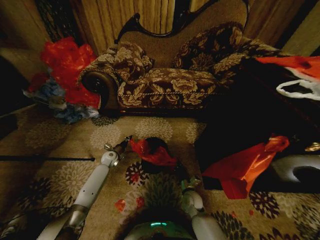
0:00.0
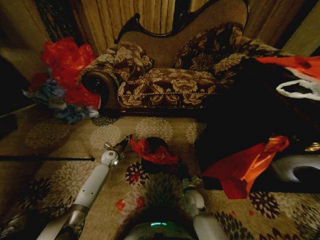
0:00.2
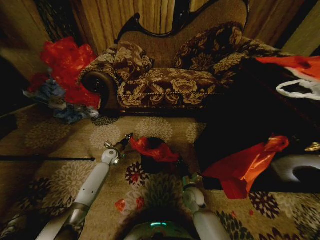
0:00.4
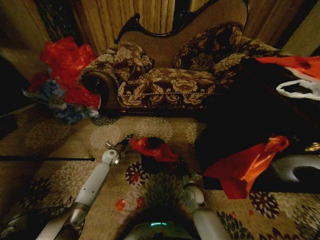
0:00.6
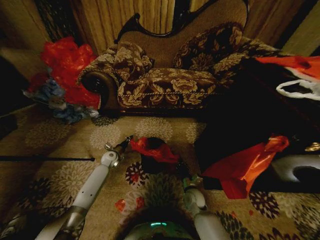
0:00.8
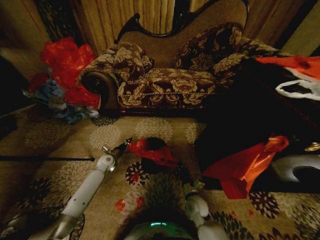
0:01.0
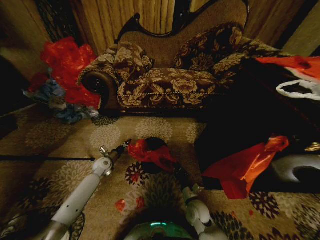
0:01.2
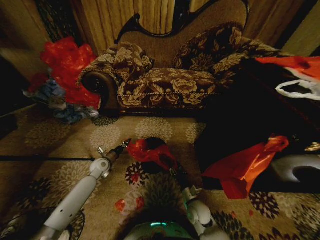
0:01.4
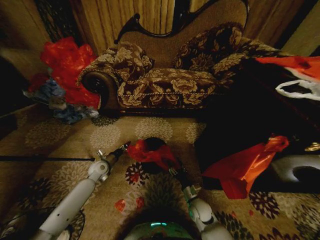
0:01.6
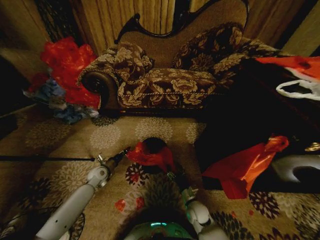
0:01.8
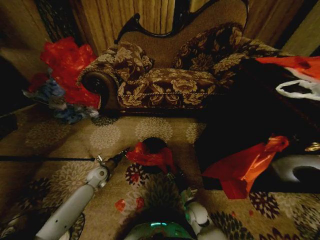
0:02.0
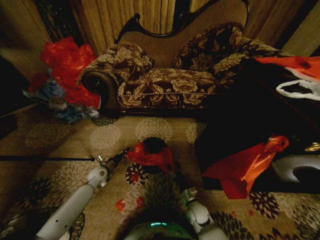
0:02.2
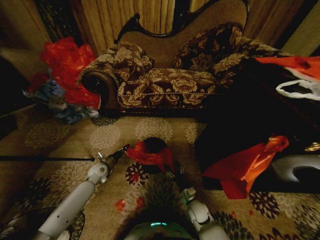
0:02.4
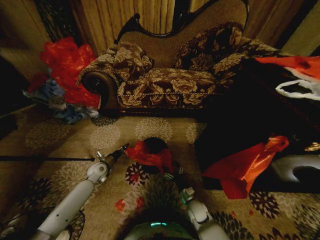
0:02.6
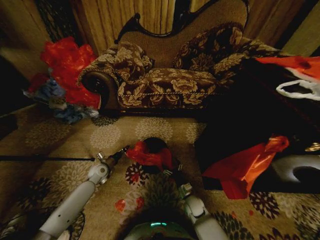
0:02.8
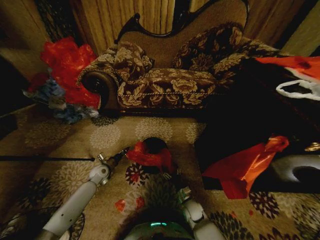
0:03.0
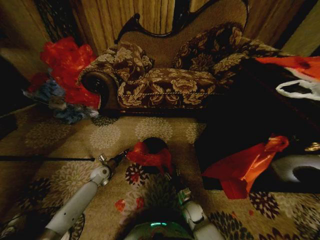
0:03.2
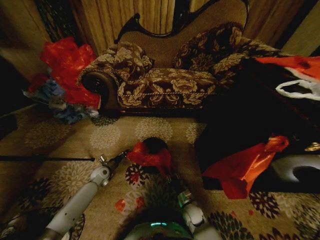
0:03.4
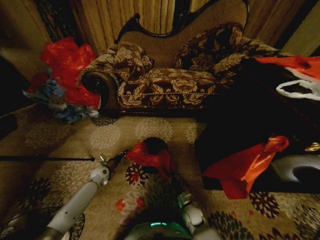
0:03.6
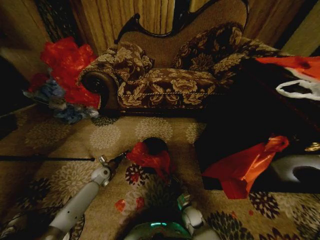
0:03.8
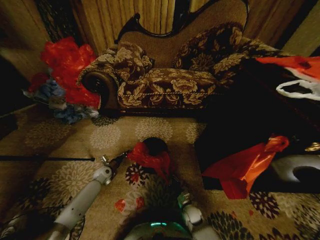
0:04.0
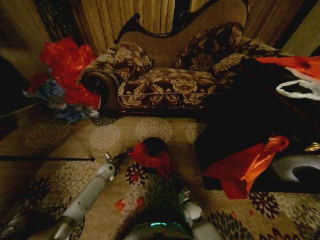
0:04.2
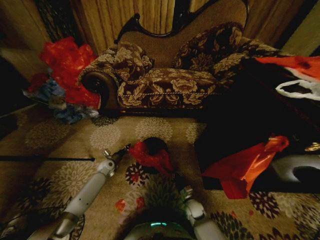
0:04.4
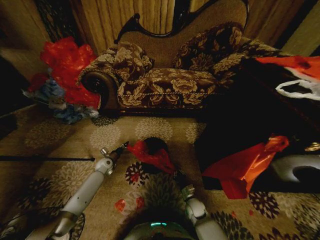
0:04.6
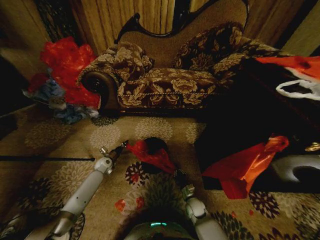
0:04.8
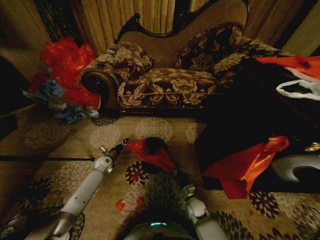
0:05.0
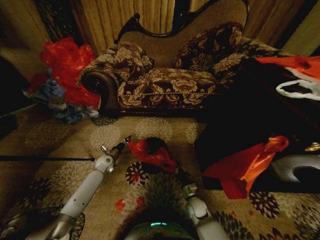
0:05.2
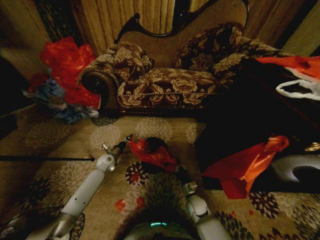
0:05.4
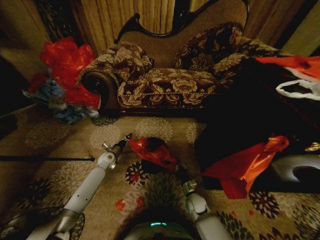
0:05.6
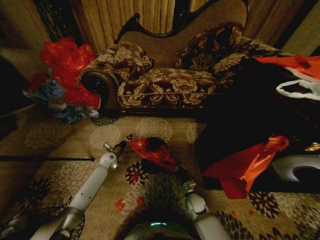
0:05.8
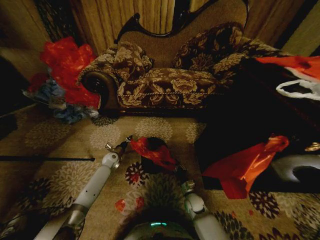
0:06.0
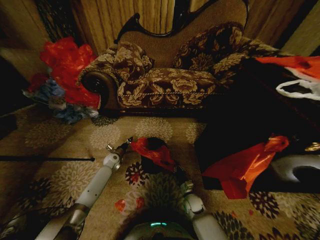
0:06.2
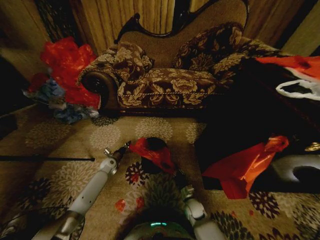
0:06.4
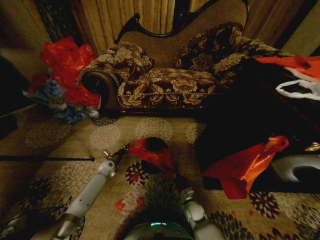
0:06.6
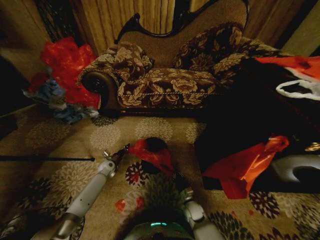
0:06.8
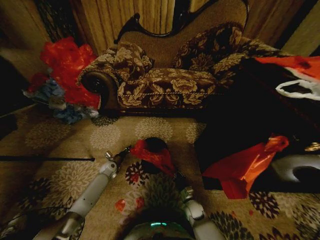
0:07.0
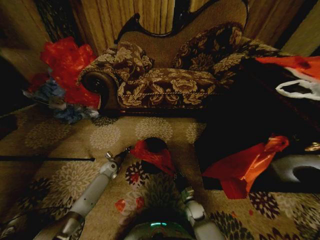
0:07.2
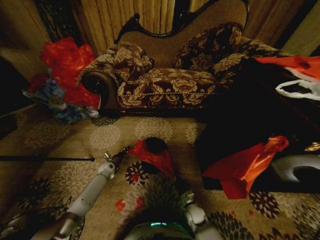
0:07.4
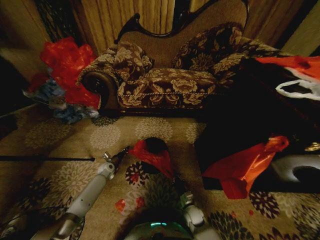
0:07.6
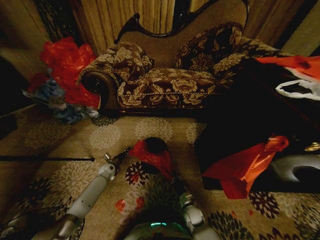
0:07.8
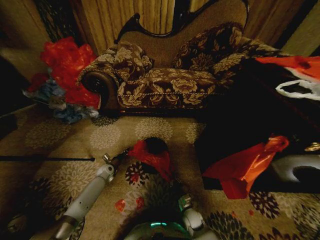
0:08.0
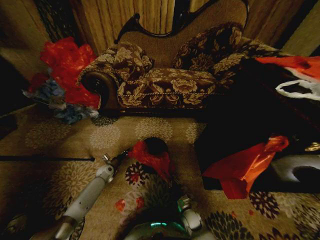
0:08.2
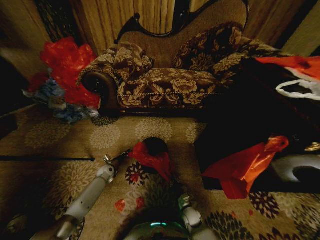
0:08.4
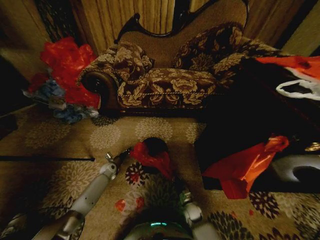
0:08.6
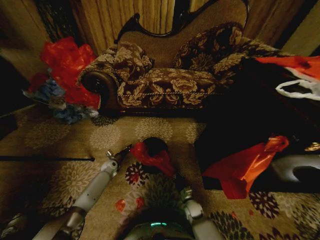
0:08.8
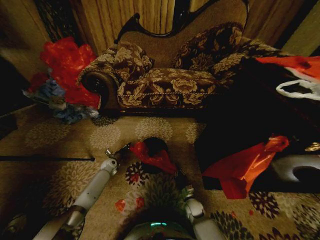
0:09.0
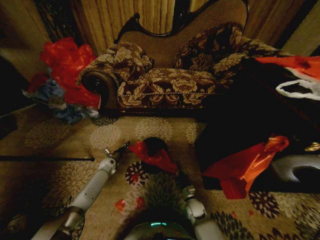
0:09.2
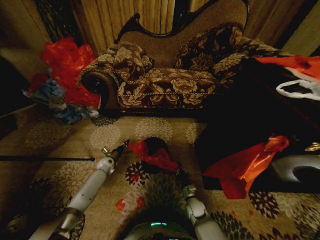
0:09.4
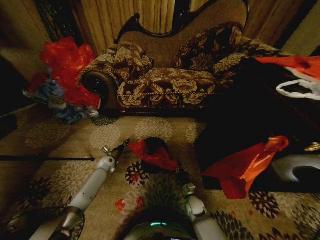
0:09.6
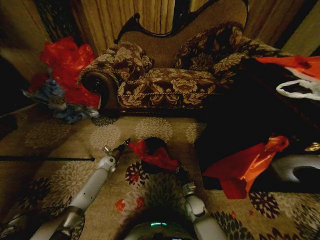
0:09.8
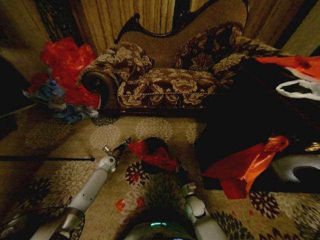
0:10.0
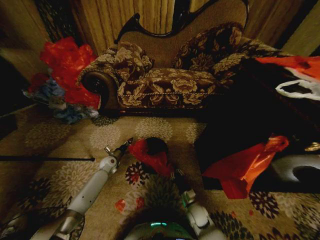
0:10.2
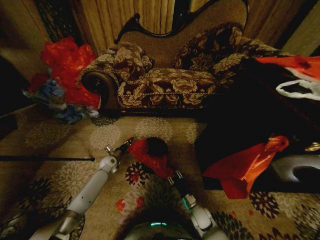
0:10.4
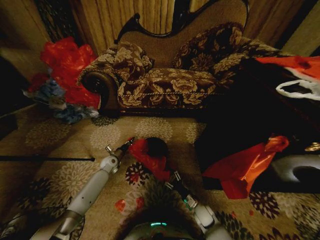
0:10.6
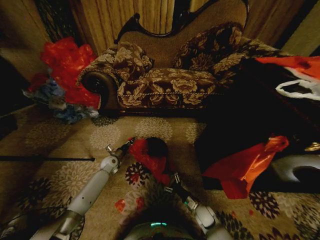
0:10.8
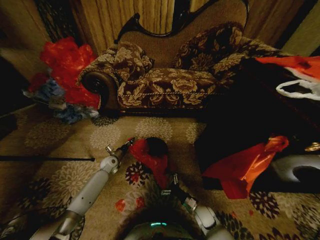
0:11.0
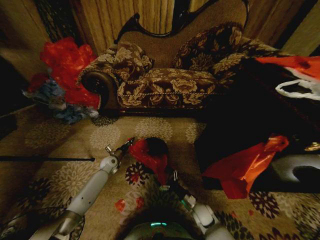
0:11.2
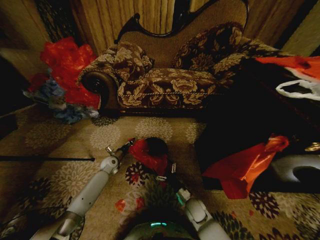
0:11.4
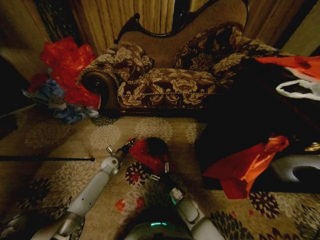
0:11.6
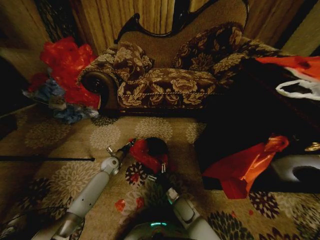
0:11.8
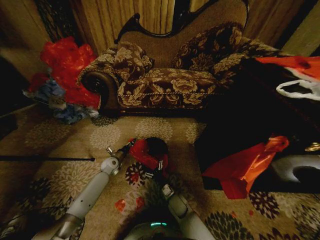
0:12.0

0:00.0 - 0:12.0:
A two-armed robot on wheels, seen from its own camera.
Task of the whole recording: Place a garbage bag over the trash bin.
0:00.0 - 0:01.6: The right gripper opens. The left gripper travels backward by about 10 cm.
0:01.6 - 0:03.0: The right gripper travels downward by some 5 cm.
0:03.0 - 0:04.4: The right gripper closes its fingers. Meanwhile the left gripper moves forward, about 5 cm.
0:04.4 - 0:06.0: The grippers move only a little.
0:06.0 - 0:07.6: The left gripper heads downward, covering approximately 5 cm, while the right gripper ends up about 5 cm from where it was.
0:07.6 - 0:09.0: The grippers move only a little.
0:09.0 - 0:10.4: The right gripper moves some 5 cm, and opens its fingers.
0:10.4 - 0:12.0: The right gripper travels to the left by approximately 10 cm, and opens.

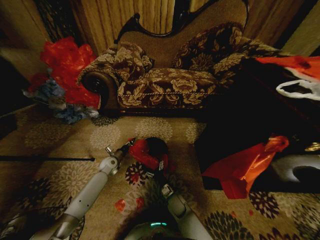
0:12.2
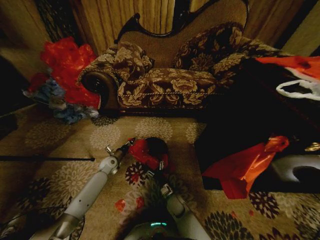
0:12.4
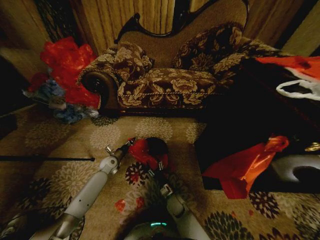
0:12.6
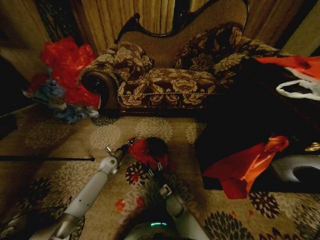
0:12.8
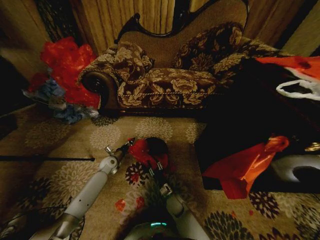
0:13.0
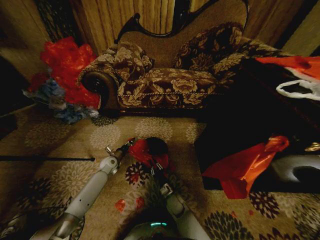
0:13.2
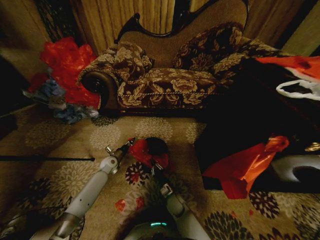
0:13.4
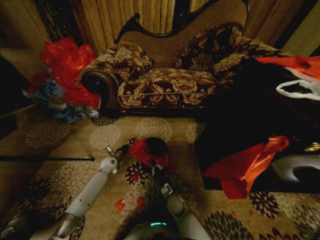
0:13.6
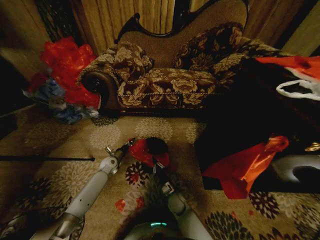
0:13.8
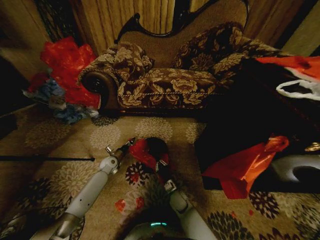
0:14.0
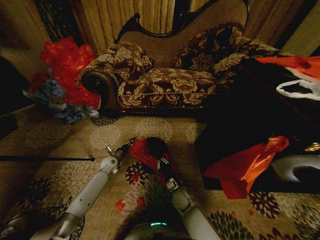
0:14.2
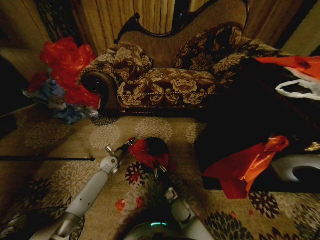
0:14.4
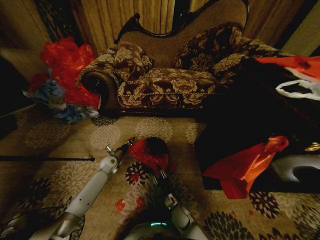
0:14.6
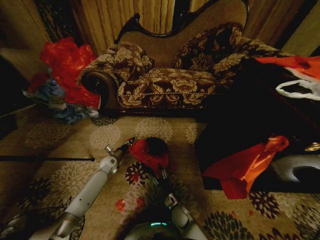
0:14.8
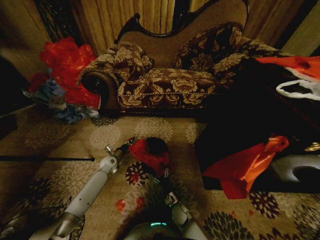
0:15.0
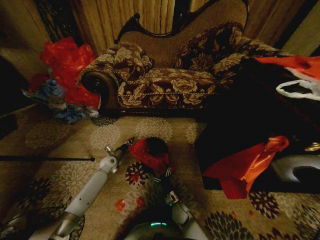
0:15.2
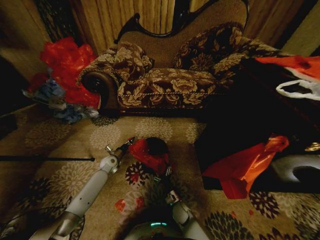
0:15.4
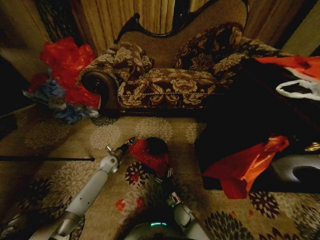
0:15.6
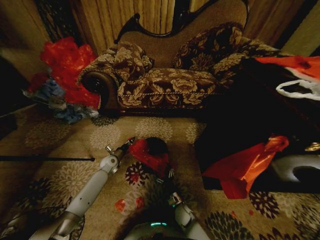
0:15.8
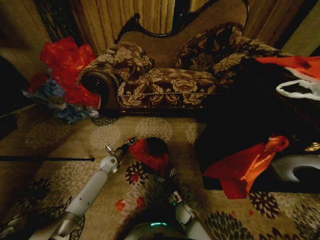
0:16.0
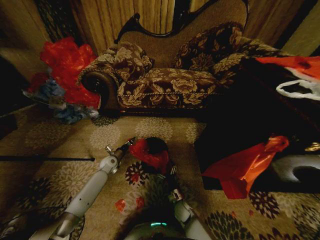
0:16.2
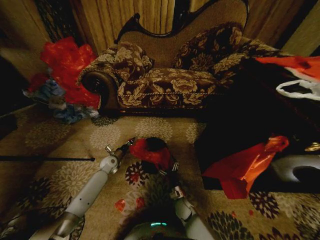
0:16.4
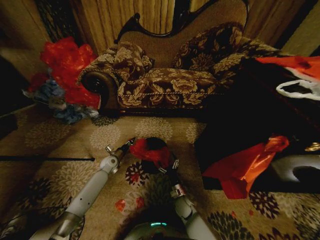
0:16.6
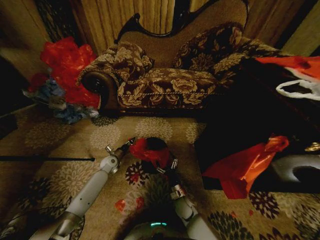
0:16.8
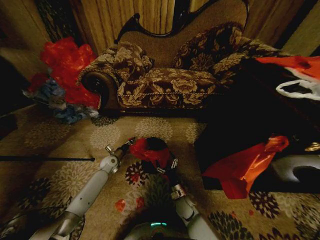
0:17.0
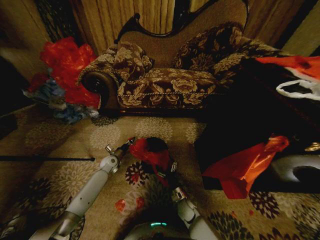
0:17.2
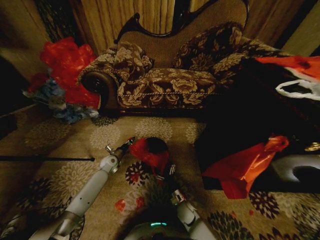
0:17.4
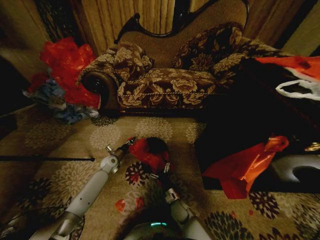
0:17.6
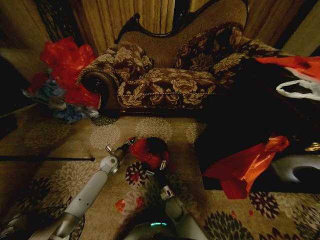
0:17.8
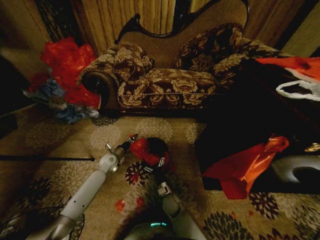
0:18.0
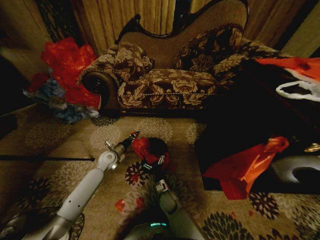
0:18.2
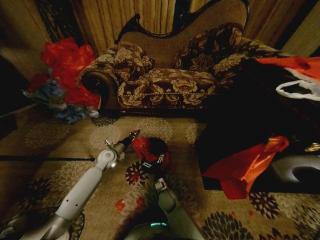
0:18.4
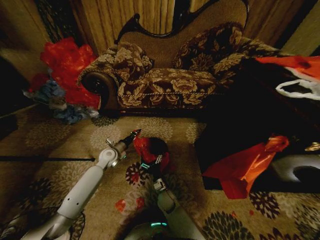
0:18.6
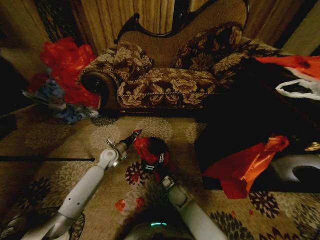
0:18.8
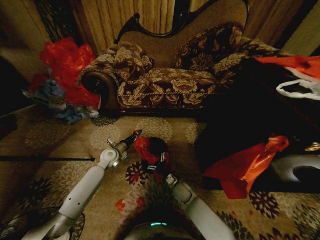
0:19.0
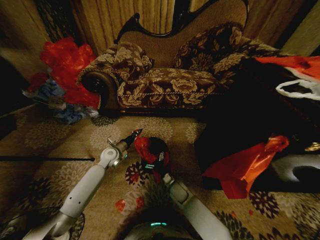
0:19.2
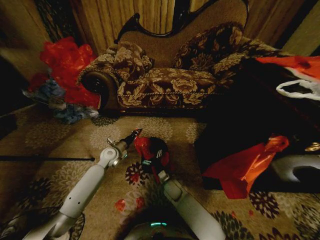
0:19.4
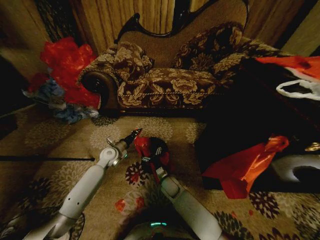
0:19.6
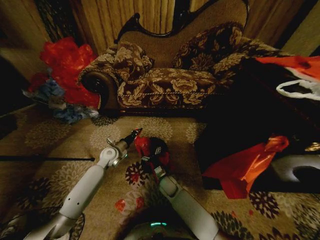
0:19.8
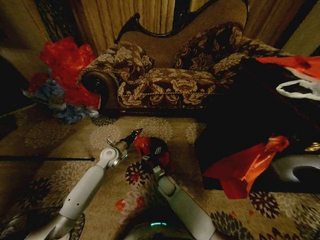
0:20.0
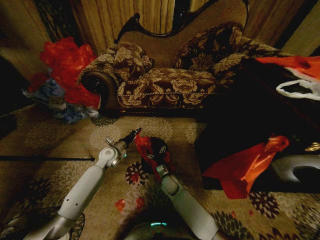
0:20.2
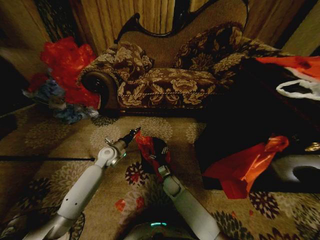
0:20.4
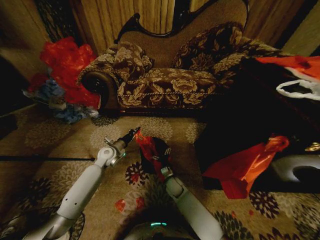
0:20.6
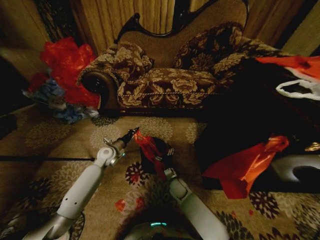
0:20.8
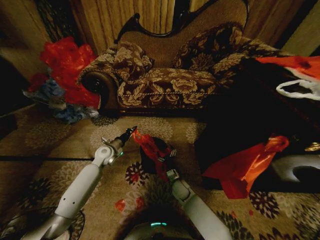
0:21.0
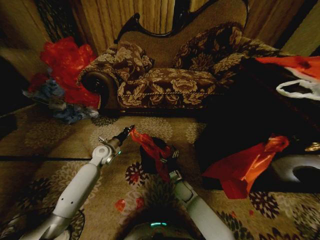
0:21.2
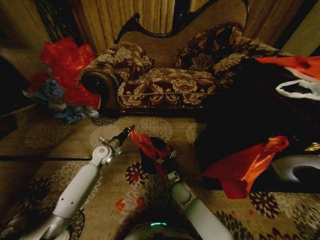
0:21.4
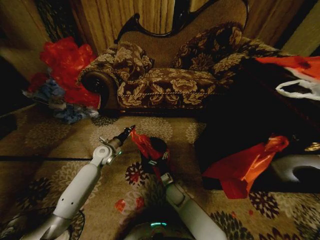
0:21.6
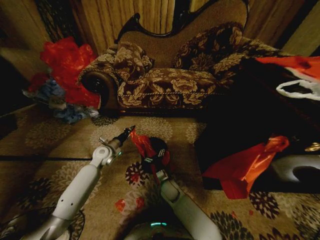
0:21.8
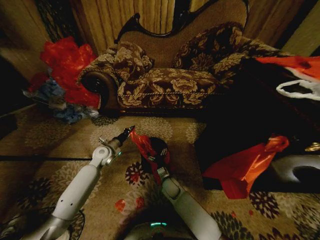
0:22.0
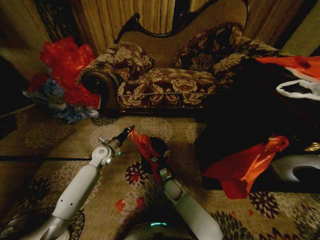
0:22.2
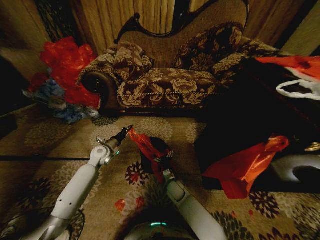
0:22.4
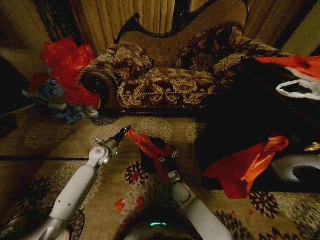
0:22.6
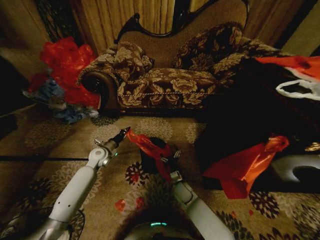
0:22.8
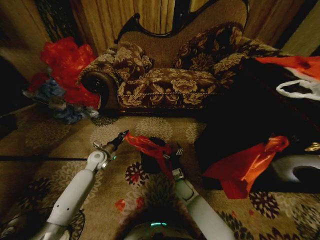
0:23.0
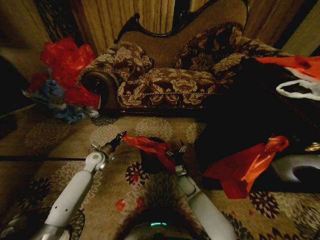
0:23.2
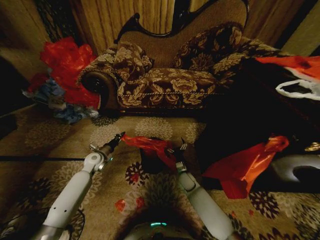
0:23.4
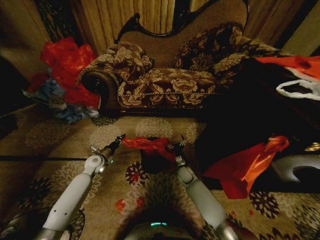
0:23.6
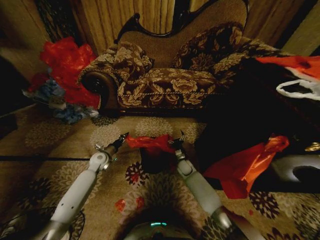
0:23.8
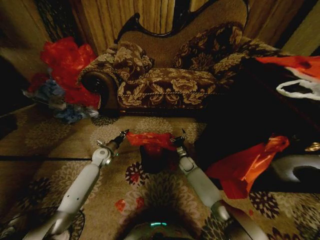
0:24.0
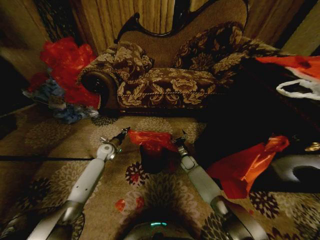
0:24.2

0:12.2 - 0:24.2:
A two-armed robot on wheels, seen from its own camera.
Task of the whole recording: Place a garbage bag over the trash bin.
0:13.8 - 0:15.2: The right gripper shifts by approximately 5 cm, and opens its fingers.
0:15.2 - 0:16.6: The grippers stay close to where they were, moving slightly.
0:16.6 - 0:18.2: The right gripper is displaced to the left by approximately 10 cm. Meanwhile the left gripper shifts approximately 5 cm upward.
0:18.2 - 0:19.8: The right gripper heads forward, covering about 5 cm, and reaches about 10 cm to the right, then returns.
0:19.8 - 0:21.2: The right gripper is displaced to the right by roughly 10 cm.
0:21.2 - 0:22.6: The right gripper goes to the left and returns, about 10 cm each way.
0:22.6 - 0:24.2: The right gripper travels forward and to the right by approximately 20 cm; the left gripper shifts about 5 cm forward.
